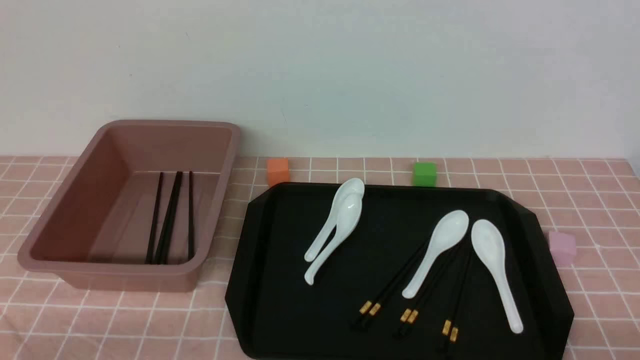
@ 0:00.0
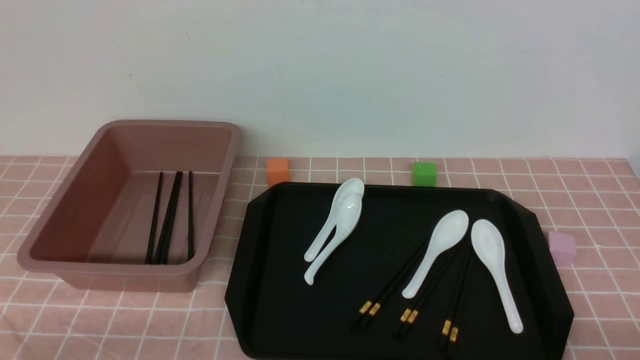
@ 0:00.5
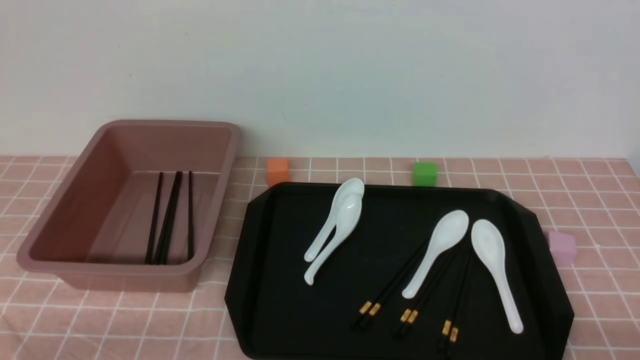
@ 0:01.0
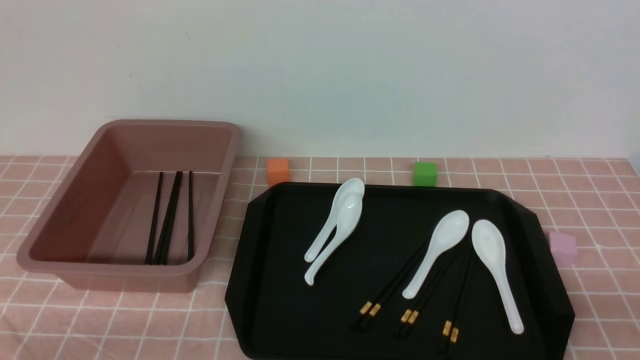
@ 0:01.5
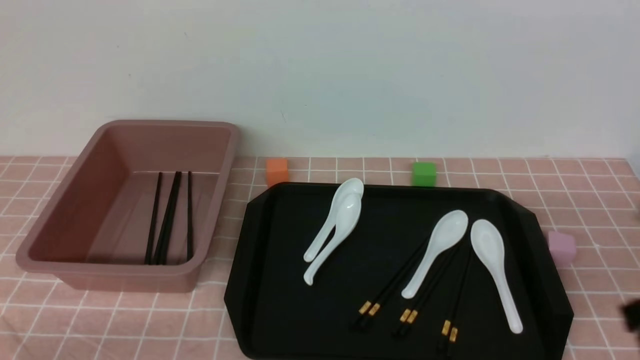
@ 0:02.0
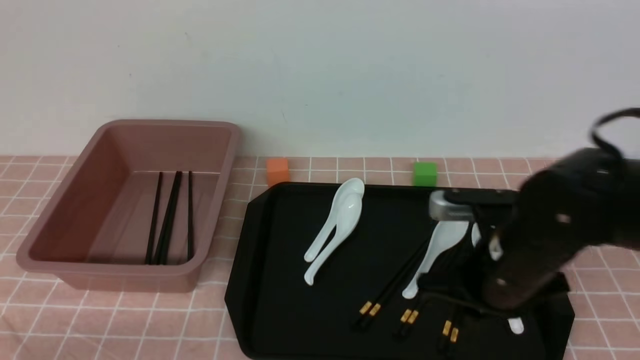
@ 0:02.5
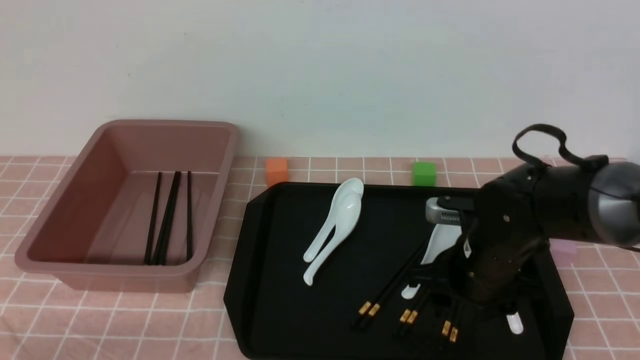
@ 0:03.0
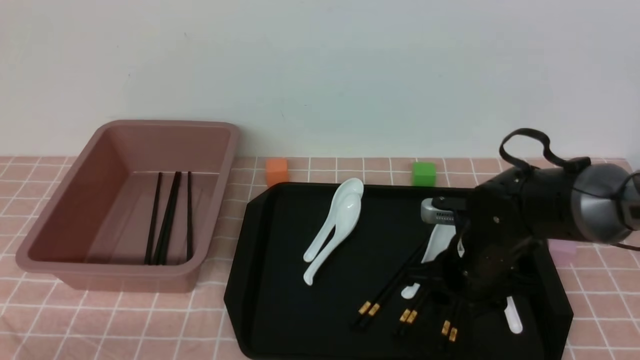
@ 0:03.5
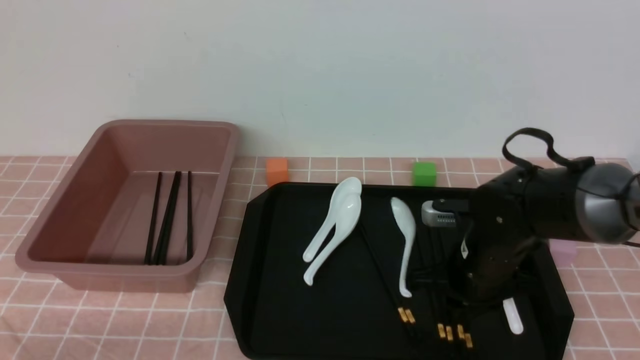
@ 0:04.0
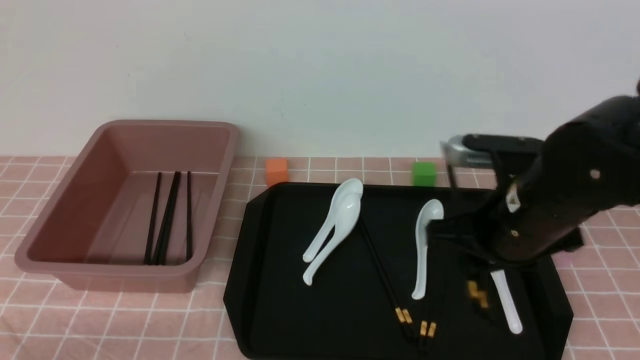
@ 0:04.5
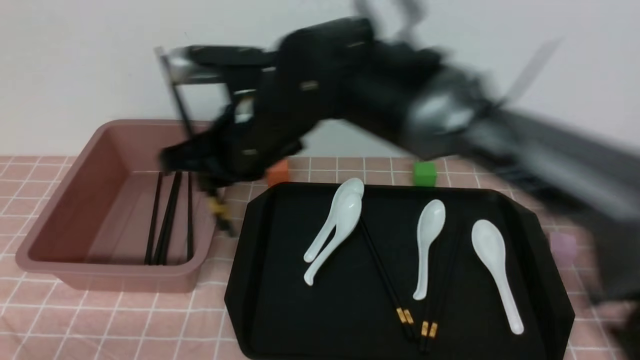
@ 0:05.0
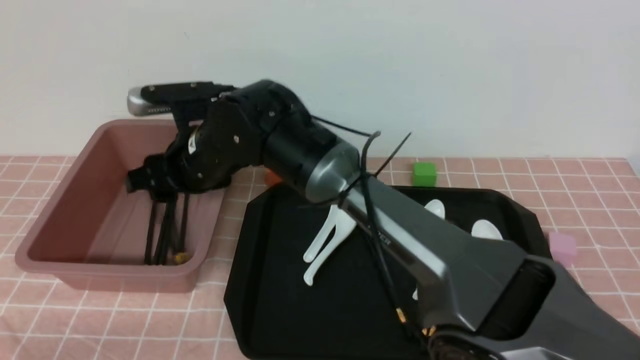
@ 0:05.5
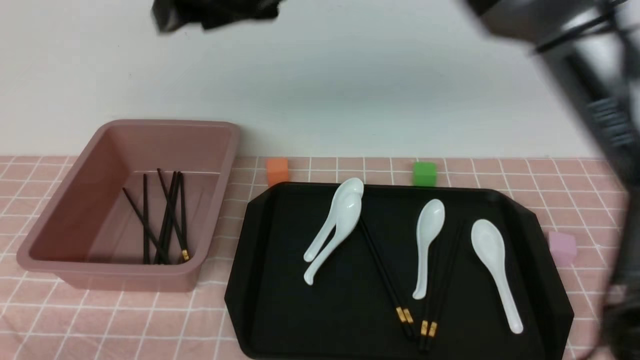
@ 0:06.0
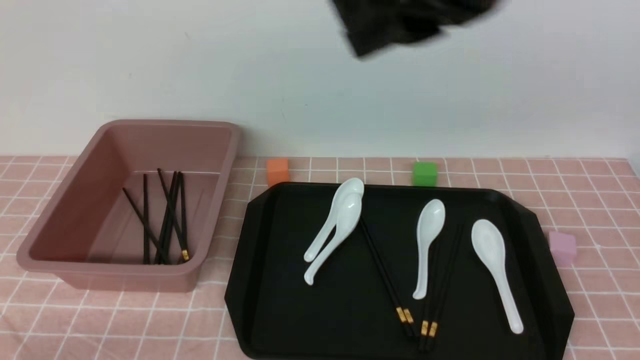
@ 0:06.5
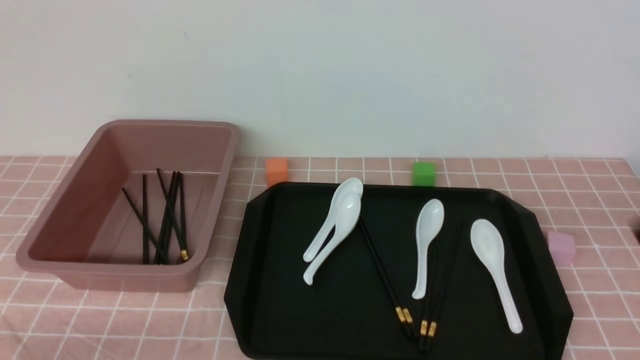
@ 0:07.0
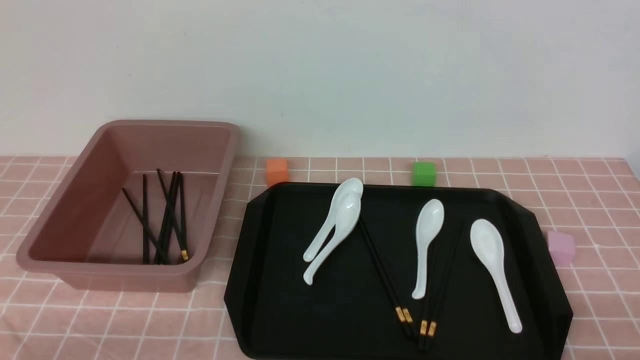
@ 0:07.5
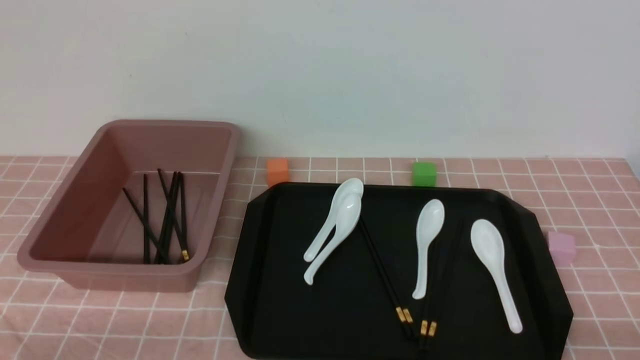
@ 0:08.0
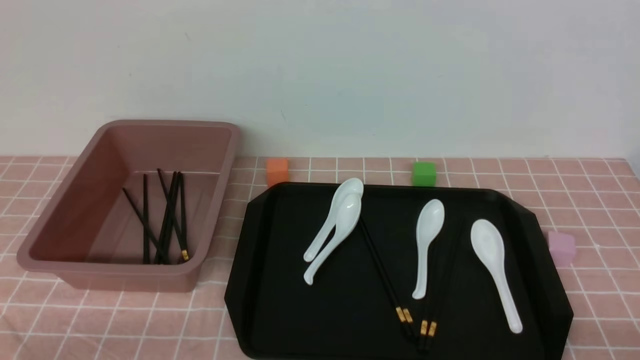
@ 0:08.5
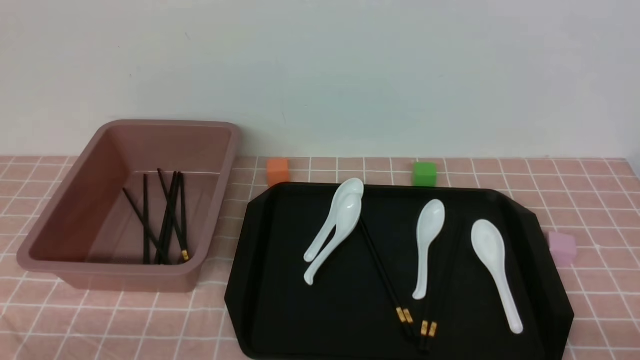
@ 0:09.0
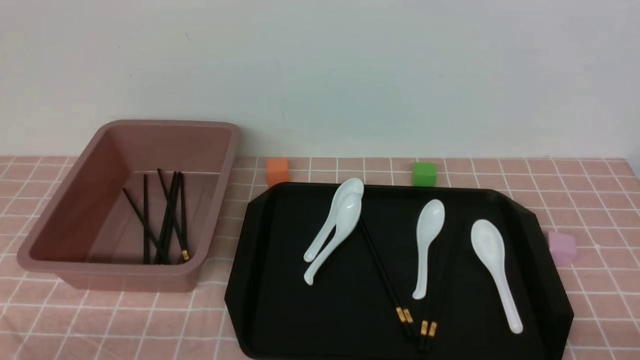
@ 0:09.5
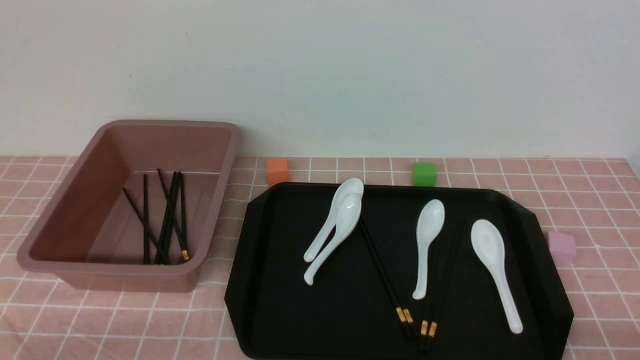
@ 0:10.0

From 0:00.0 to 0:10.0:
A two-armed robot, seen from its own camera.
Step, from 0:00.0 to 0:04.5: use the right arm to grab a pair of chopsticks.
Step, from 0:05.0 to 0:05.5: use the right arm to put the chopsticks into the lunch box.
From 0:00.0 to 0:02.0: The right gripper shifts approximately 15 cm forward and upward, and closes its fingers.
From 0:02.0 to 0:04.0: The right gripper goes some 20 cm forward, downward and to the left, and opens, then closes once more.
From 0:04.0 to 0:06.0: The right gripper shifts about 35 cm upward and to the left, and opens.
From 0:06.0 to 0:08.0: The right gripper goes some 50 cm to the right, downward and backward, and closes.
From 0:08.0 to 0:10.0: Both grippers stay about where they are.

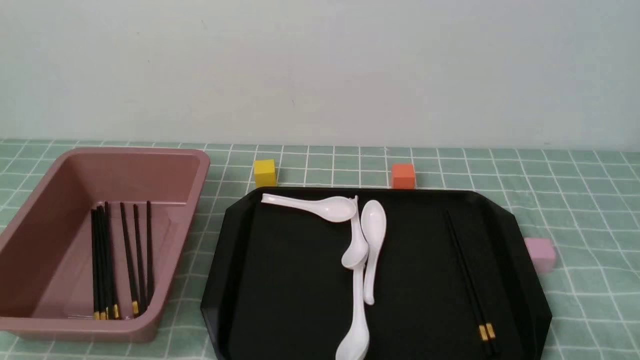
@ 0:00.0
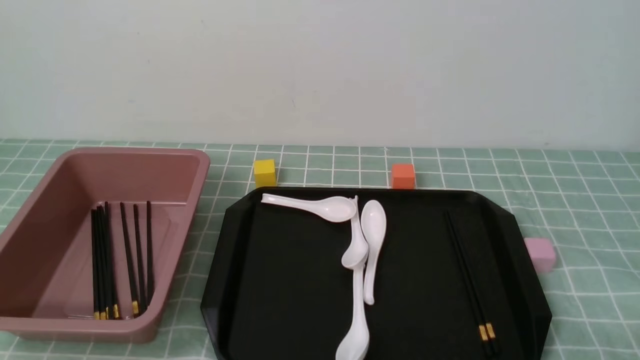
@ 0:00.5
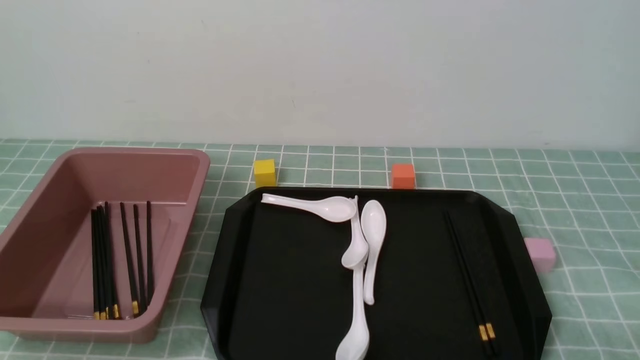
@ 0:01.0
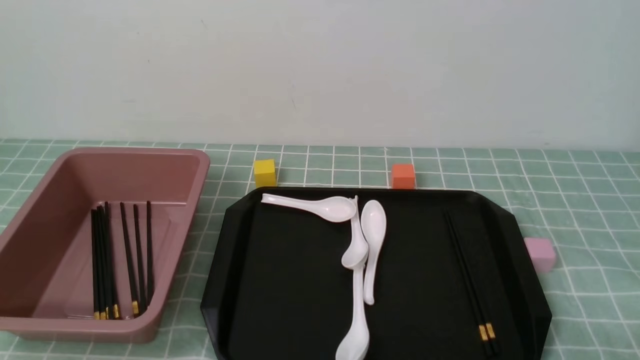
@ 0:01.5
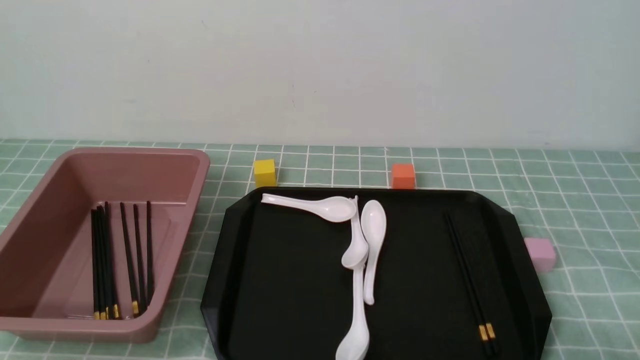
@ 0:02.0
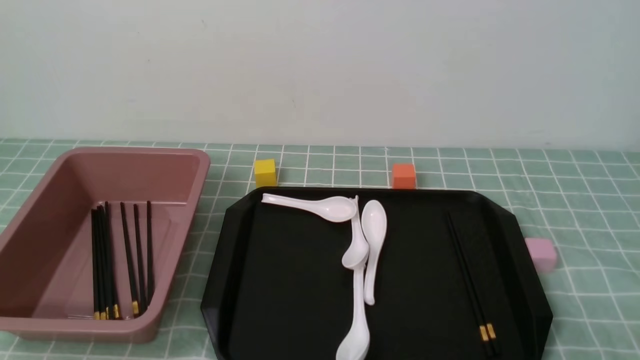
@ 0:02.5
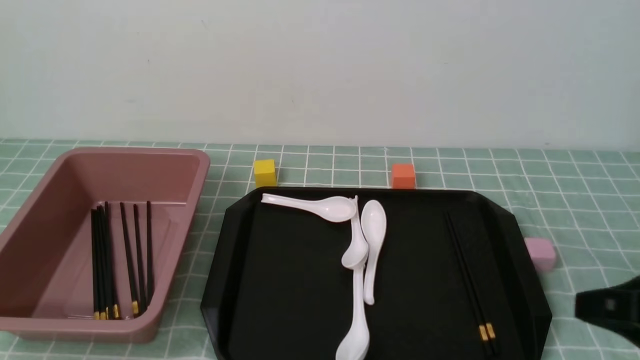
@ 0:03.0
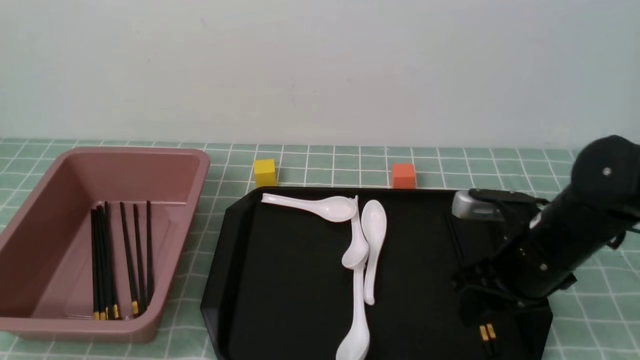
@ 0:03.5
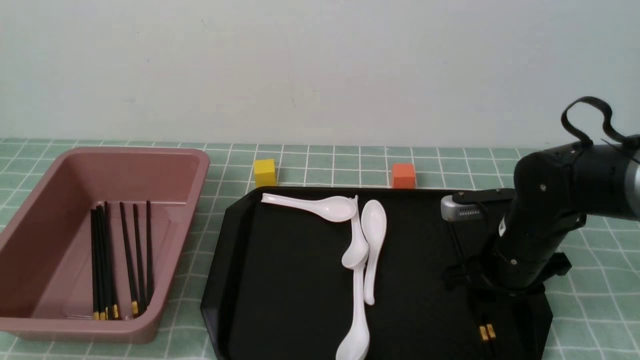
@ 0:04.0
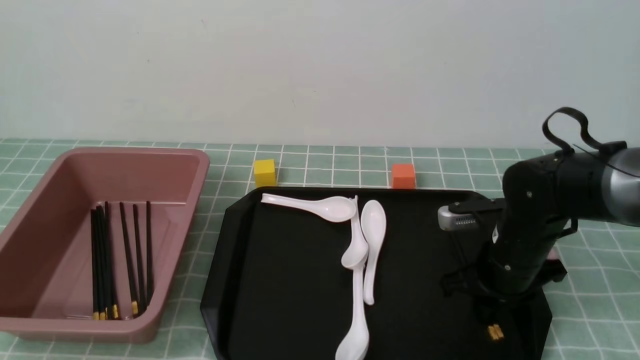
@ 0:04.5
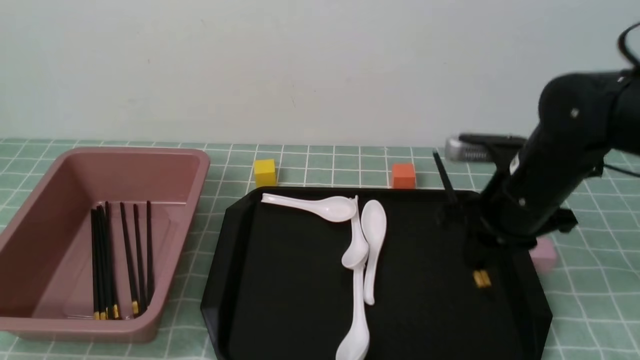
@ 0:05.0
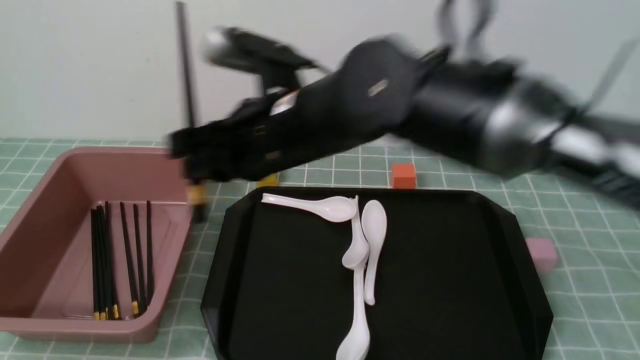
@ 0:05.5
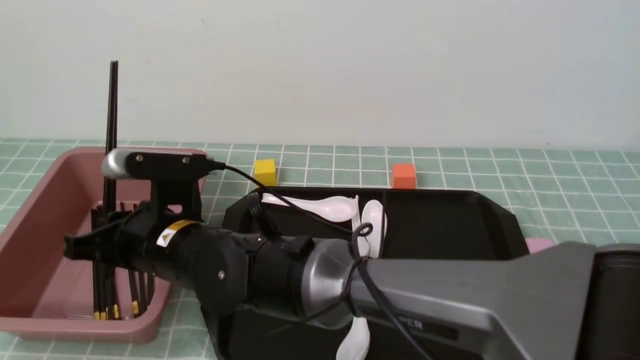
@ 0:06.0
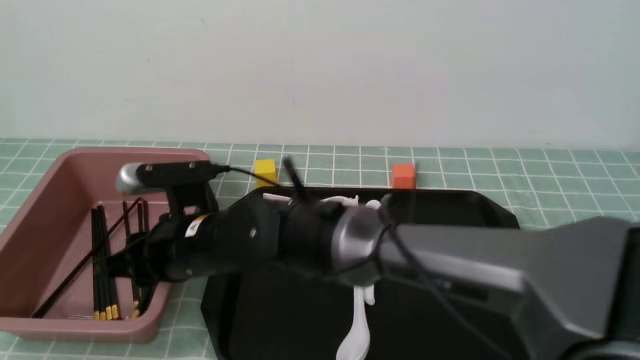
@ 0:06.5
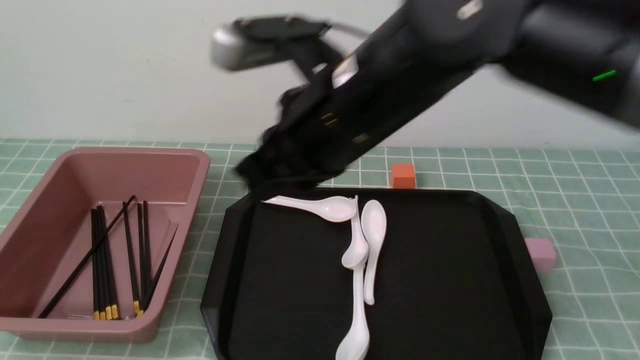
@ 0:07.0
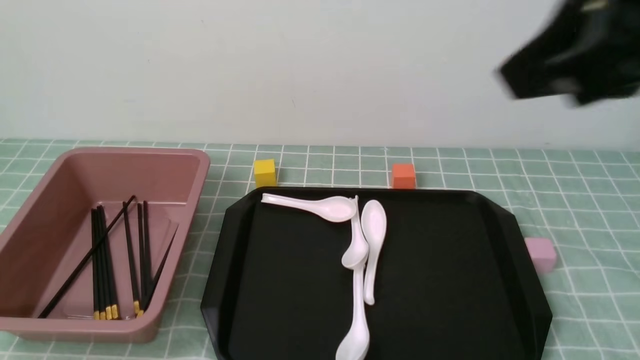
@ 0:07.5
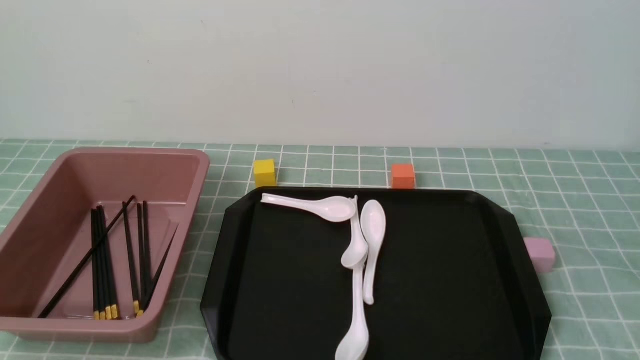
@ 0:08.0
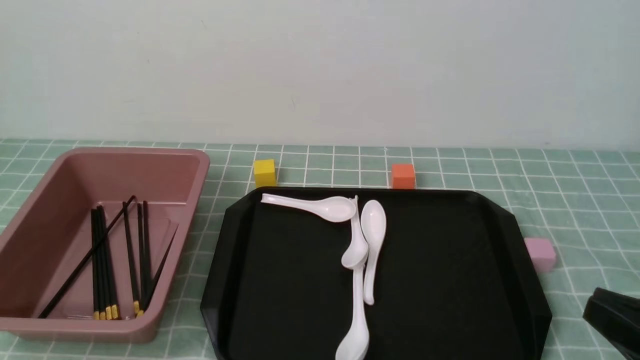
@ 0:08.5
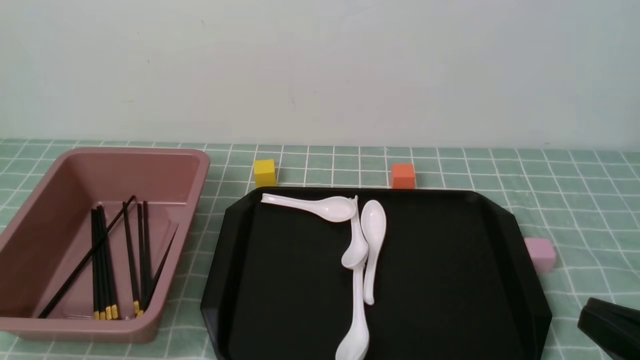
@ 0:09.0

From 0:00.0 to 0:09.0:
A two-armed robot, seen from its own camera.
Step, from 0:00.0 to 0:05.0: use the right arm to grab a pair of chopsticks.
Step, from 0:05.5 to 0:06.5: use the right arm to put the chopsticks into the lunch box.
From 0:02.0 to 0:04.5: The right gripper travels forward by roughly 30 cm, and closes, then opens again.
From 0:04.5 to 0:07.0: The right gripper travels upward and to the left by some 30 cm, and closes.
From 0:07.0 to 0:09.0: The right gripper moves to the right, backward and downward, roughly 30 cm.

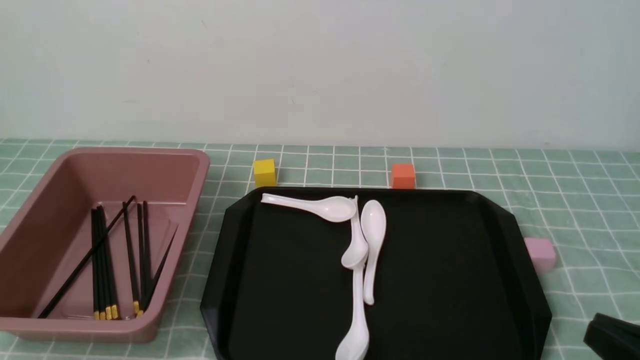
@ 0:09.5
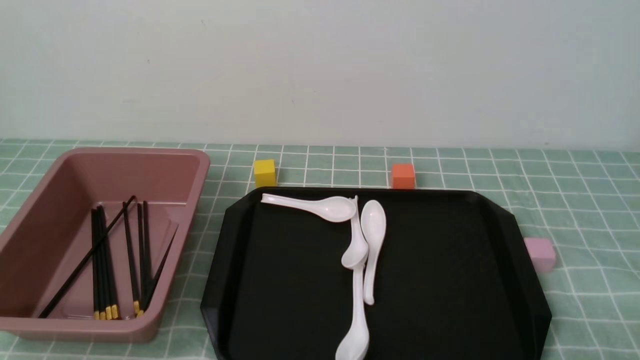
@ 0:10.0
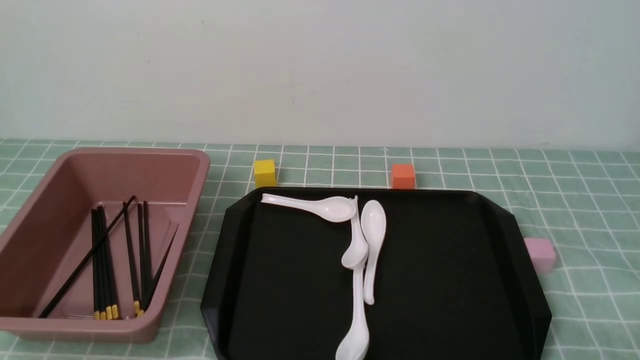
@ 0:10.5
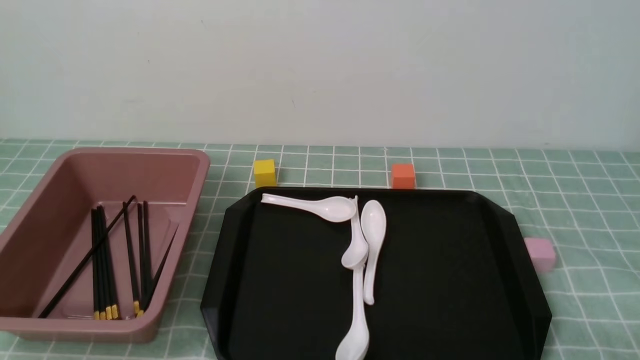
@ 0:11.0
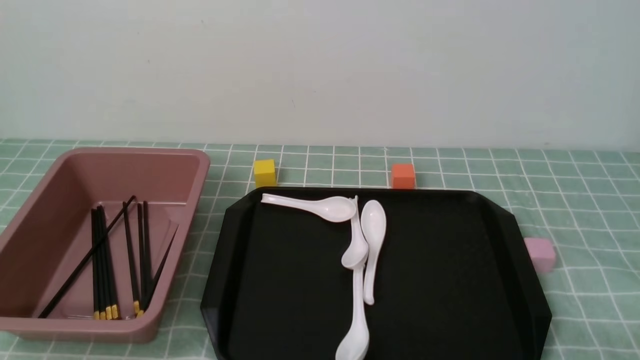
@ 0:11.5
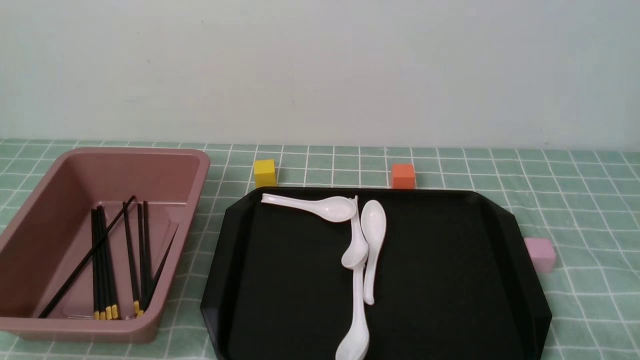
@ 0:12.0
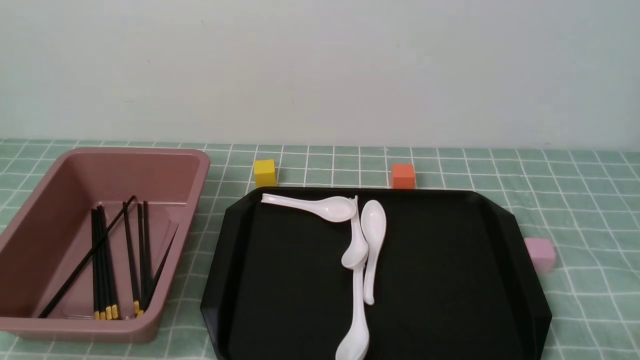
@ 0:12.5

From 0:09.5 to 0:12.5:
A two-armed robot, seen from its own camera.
From 0:09.5 to 0:11.0: The right gripper shifts about 10 cm downward.
From 0:11.0 to 0:12.5: Both grippers stay about where they are.
